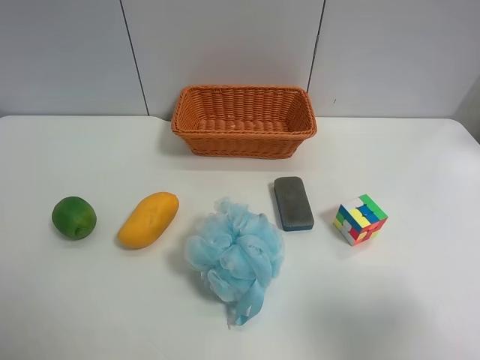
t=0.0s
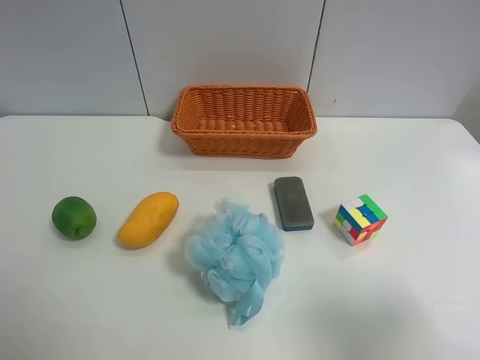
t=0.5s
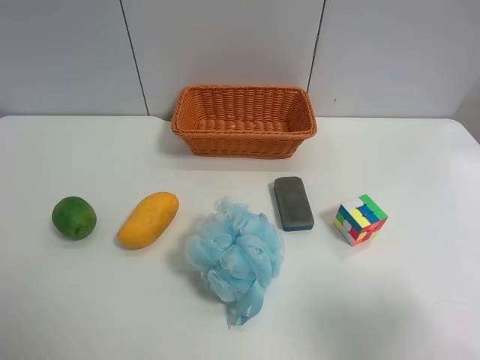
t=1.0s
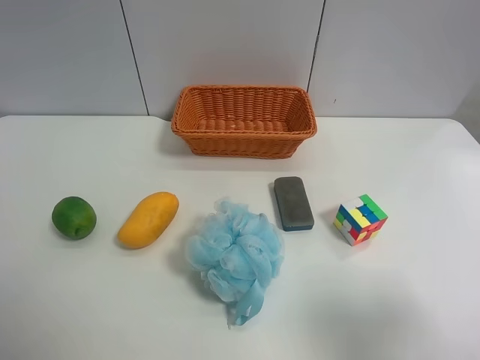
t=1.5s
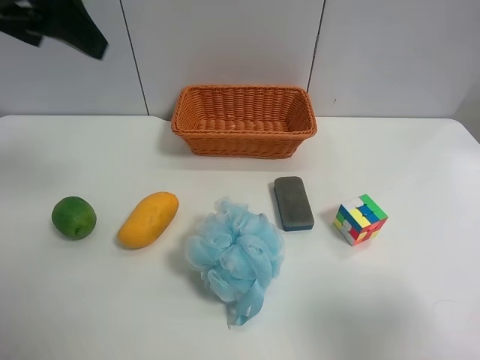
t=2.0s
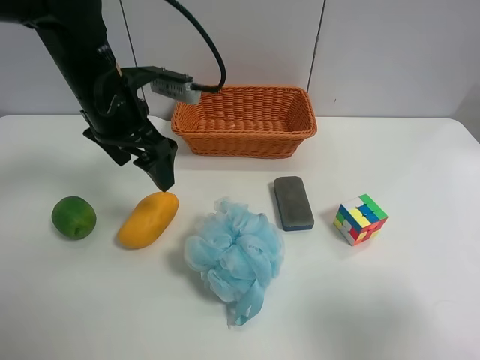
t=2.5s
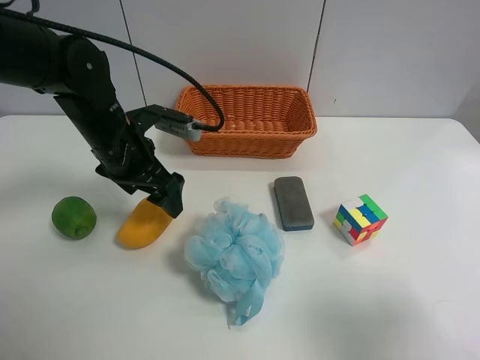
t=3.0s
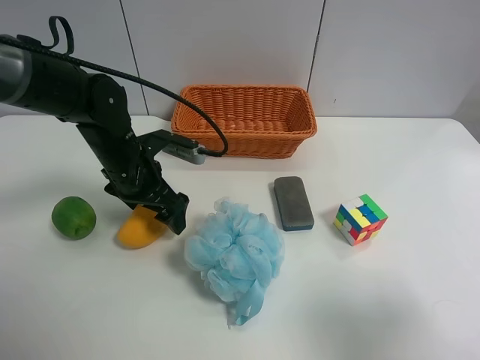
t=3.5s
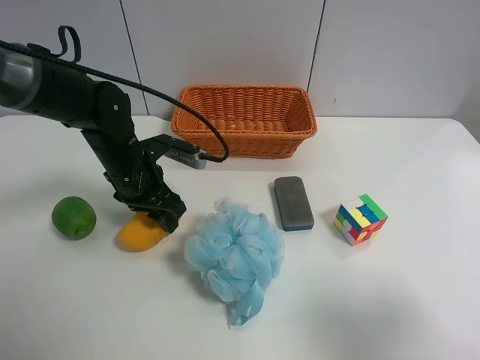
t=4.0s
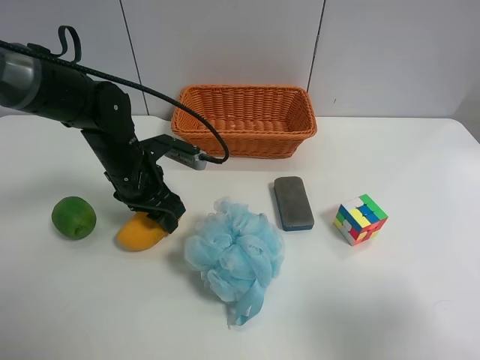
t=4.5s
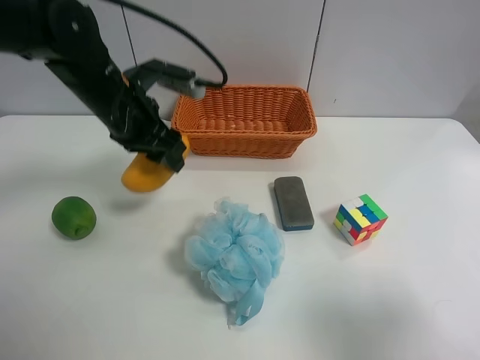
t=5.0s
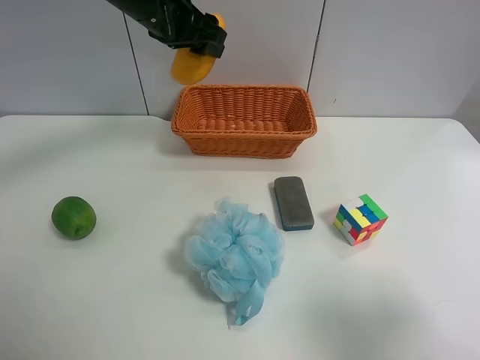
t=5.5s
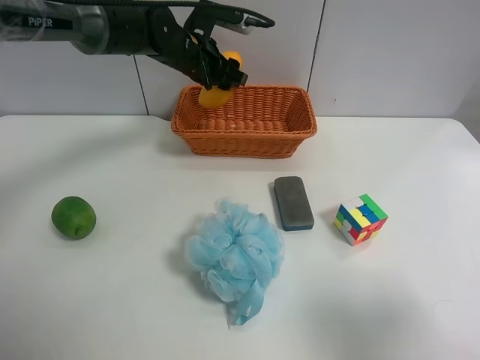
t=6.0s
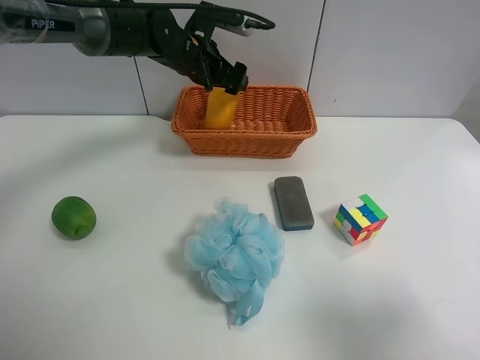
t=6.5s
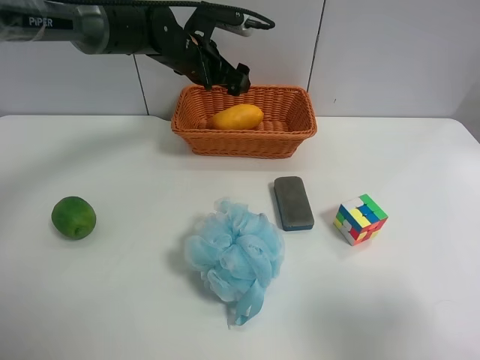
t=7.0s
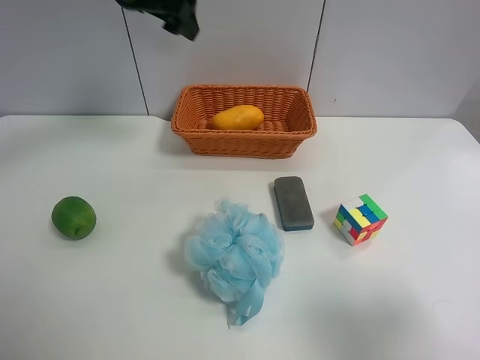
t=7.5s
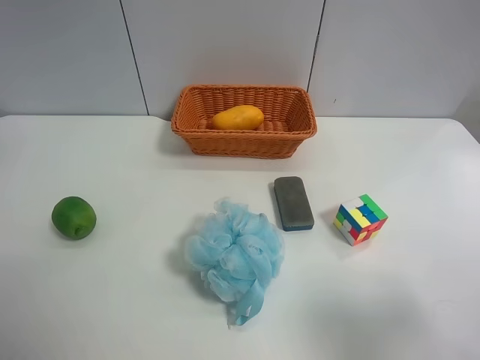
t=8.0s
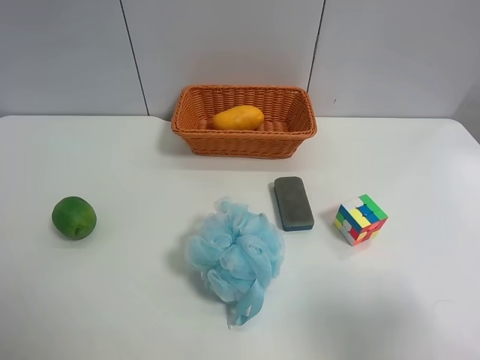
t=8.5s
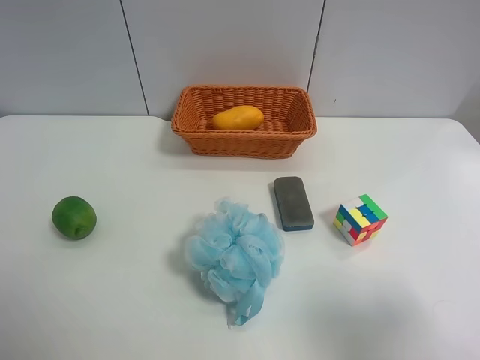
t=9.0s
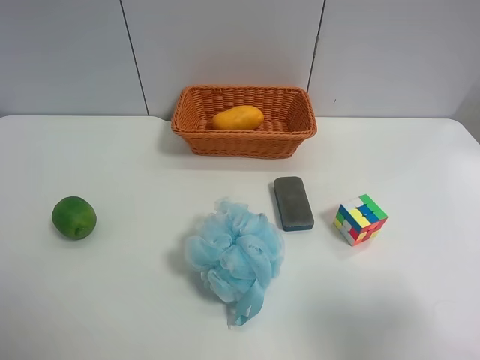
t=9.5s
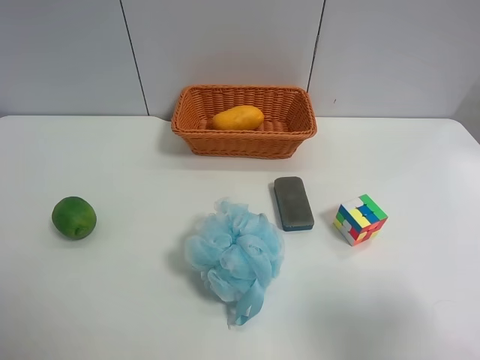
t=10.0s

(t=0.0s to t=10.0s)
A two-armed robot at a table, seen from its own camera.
Task of the whole recording: Randomly grab green lemon or mangoes from the table and put them in a basket.
Step, t=0.0s - t=4.0s: Grasp the mango with the left gripper.
Step, t=4.5s - t=7.0s: Place the mango into the basket with the left gripper.
t=0.0s - t=2.0s: The left gripper heads forward, covering some 30 cm.
t=2.0s - t=4.0s: The left gripper is displaced downward by roughly 25 cm, and closes its fingers.
t=4.0s - t=6.0s: The left gripper goes approximately 20 cm forward, upward and to the right.
t=6.0s - t=8.0s: The left gripper is displaced upward, backward and to the left by roughly 40 cm, and opens up.

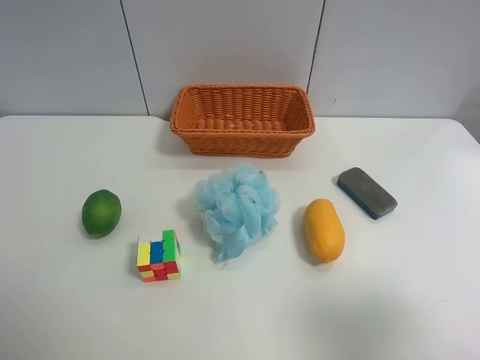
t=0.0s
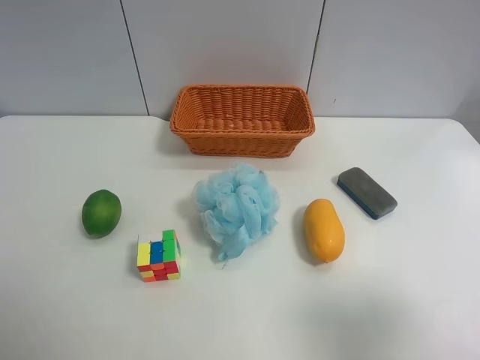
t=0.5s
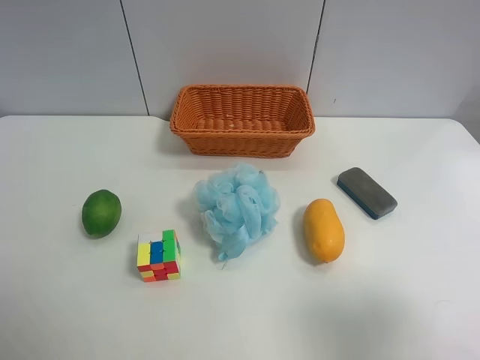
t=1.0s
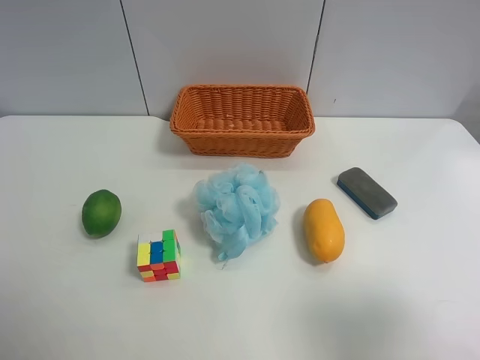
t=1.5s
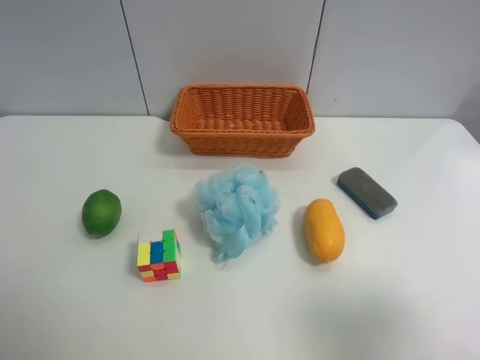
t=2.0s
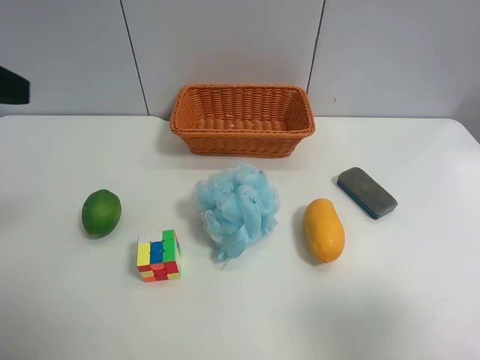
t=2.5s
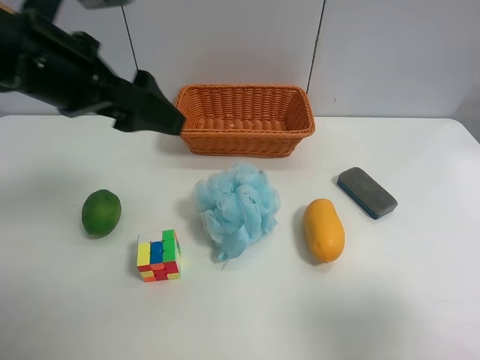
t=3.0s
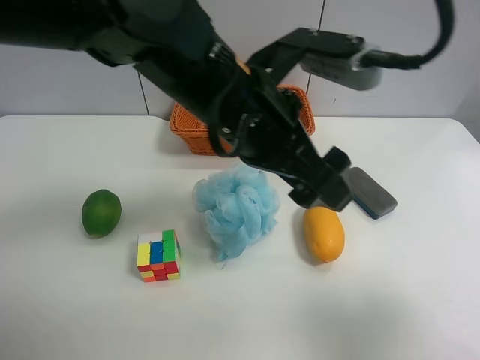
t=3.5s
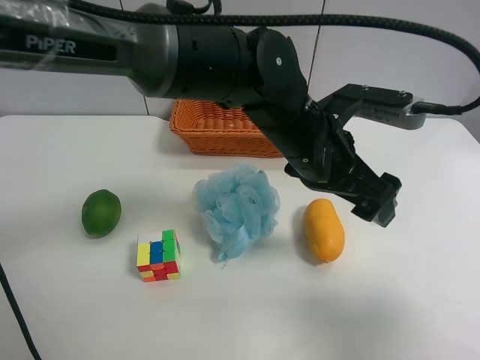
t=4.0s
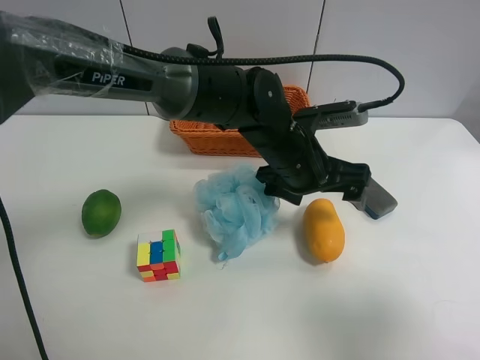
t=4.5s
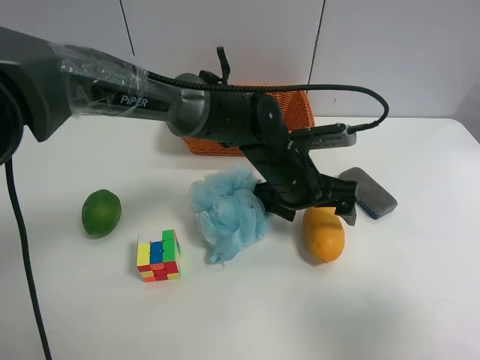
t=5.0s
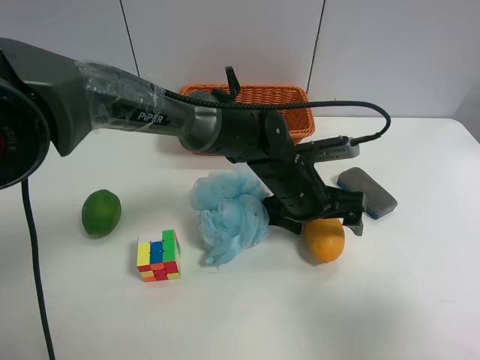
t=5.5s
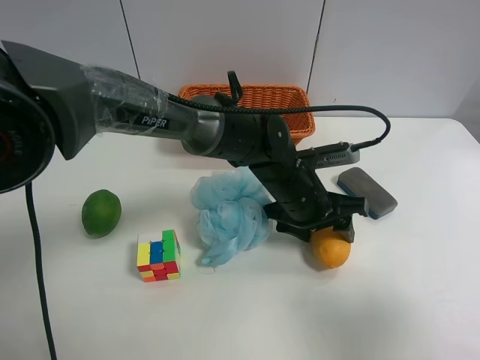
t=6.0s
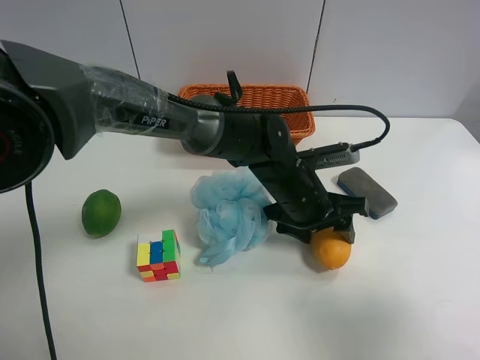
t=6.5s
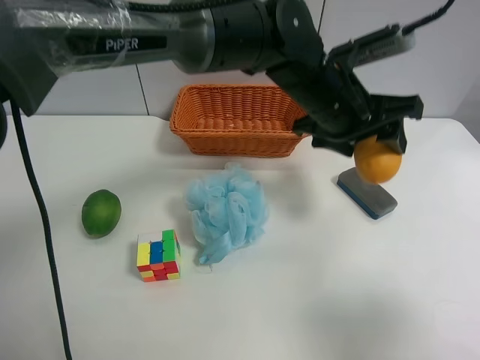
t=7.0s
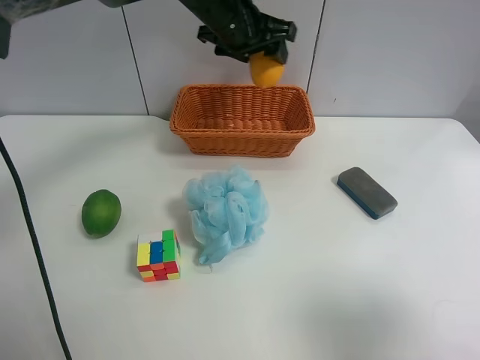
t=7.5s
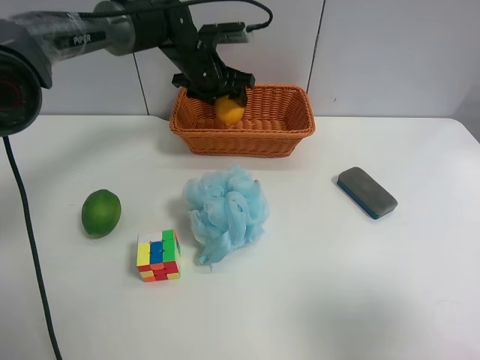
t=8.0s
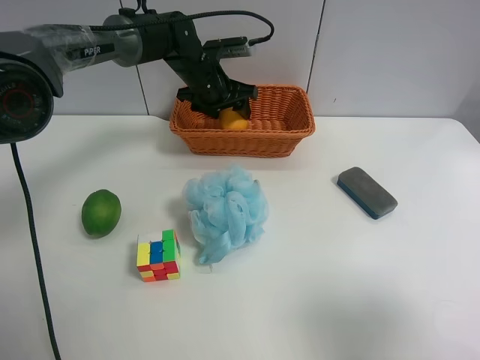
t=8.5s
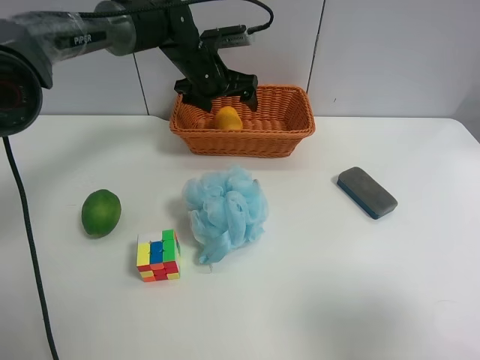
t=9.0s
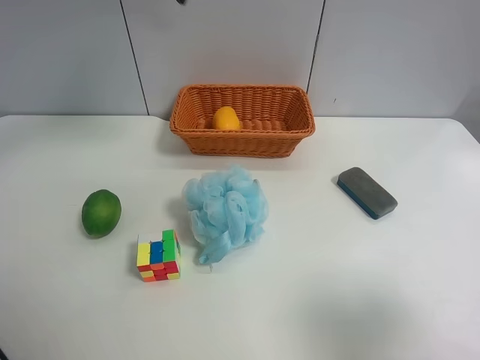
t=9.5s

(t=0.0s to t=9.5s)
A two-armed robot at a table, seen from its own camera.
Task of the whole recording: Randomly grab green lemon or mangoes from the table and put them in a basket.
Step, t=0.0s - t=6.0s: Grasp the mango with the left gripper.
Step, t=6.5s - t=9.0s: Place the mango into the basket with the left gripper.
t=2.0s - t=4.0s: The left gripper shifts some 50 cm to the right and forward.
t=4.0s - t=5.5s: The left gripper is displaced downward by about 10 cm.
t=5.5s - t=7.5s: The left gripper shifts roughly 25 cm upward, forward and to the left, and closes.
t=7.5s - t=9.5s: The left gripper moves upward, to the left and backward, roughly 20 cm, and opens.

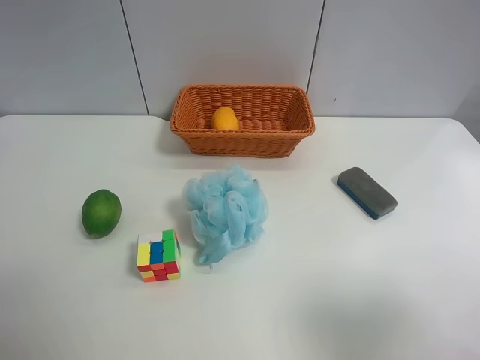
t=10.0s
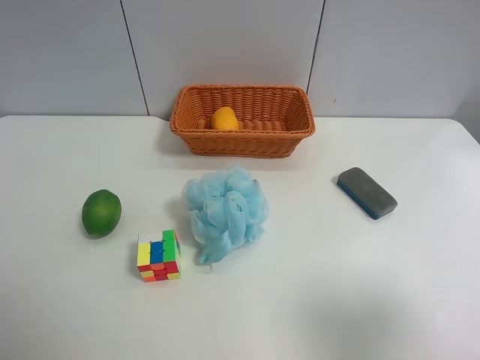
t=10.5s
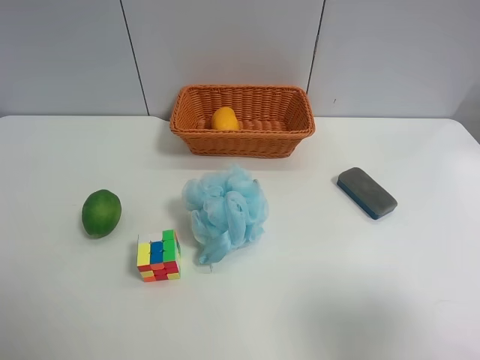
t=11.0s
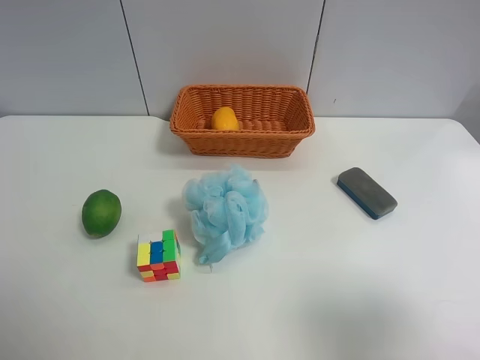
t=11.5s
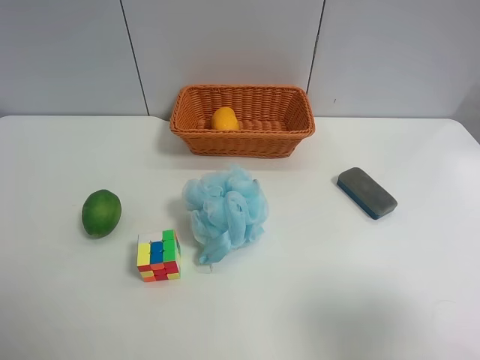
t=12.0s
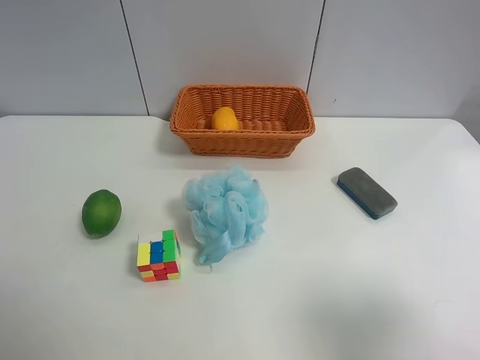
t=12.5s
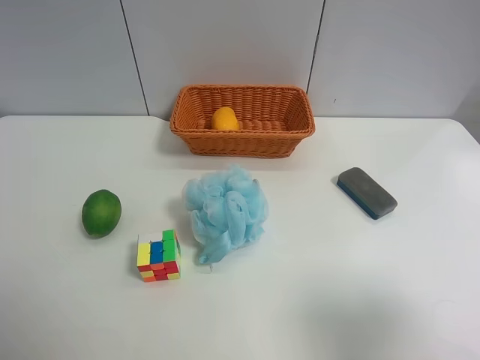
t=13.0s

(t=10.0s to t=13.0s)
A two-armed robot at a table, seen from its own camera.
Task of the whole recording: Randomly grab green lemon or mangoes from the table and put them in a basket.
t=11.5s - t=13.0s: Both grippers stay put.

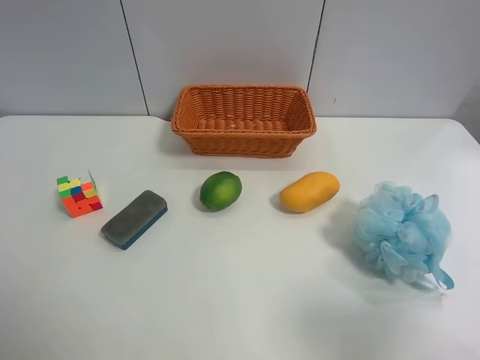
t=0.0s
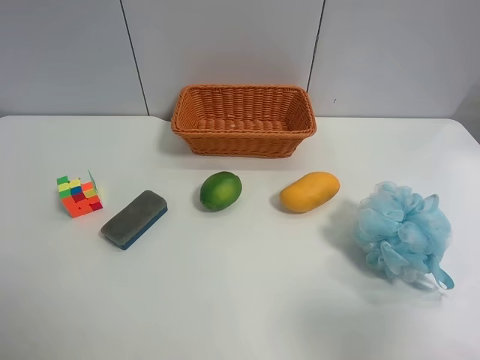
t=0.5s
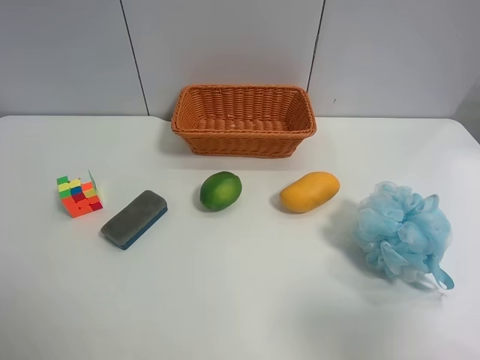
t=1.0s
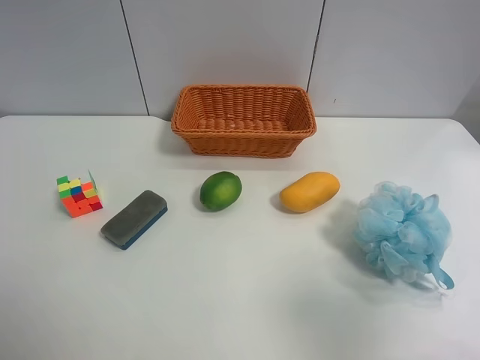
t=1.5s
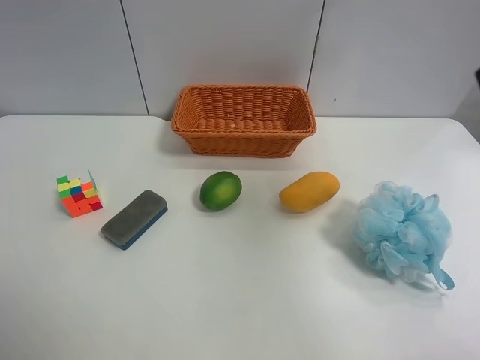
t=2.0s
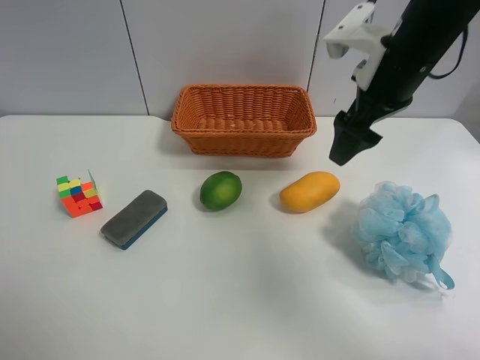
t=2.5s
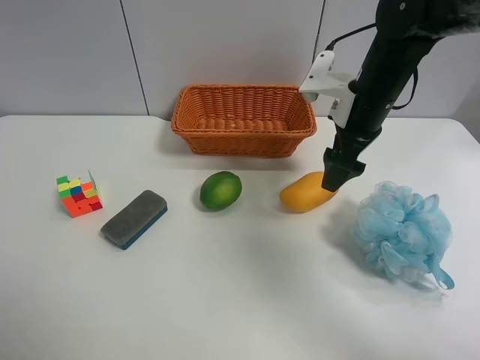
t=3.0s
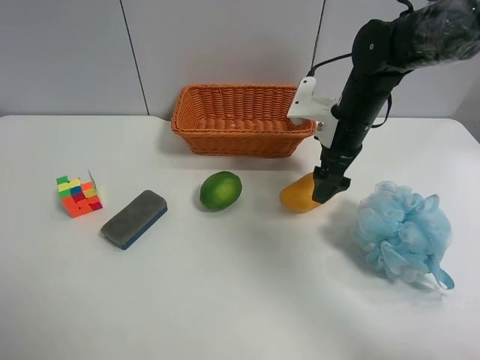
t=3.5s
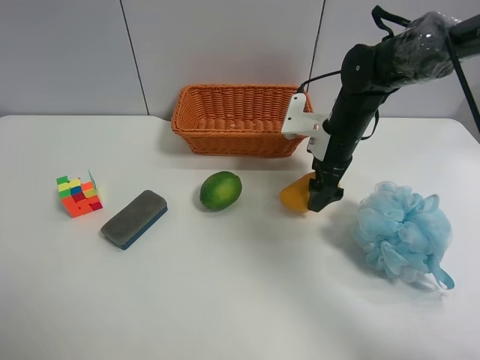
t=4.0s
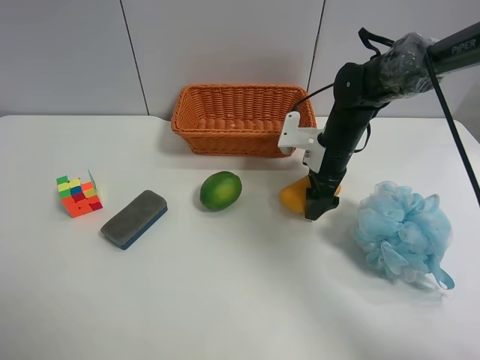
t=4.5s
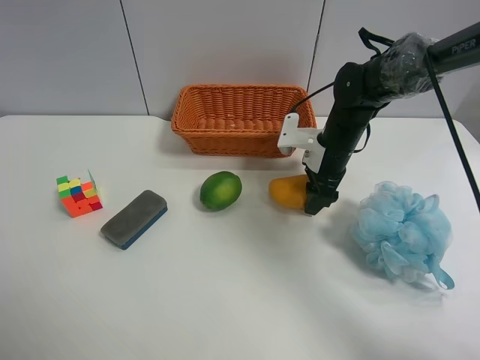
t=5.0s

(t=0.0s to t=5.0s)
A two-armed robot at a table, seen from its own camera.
Task of the whole recording: Randomly grab green lemon or mangoes from the table and put them in a basket.
Step, t=0.0s - t=5.0s: Grasp the mango with the right gripper.
t=0.0s - t=2.5s: The right gripper travels forward by approximately 30 cm.
t=2.5s - t=5.0s: The right gripper heads downward, covering approximately 15 cm, and closes.
